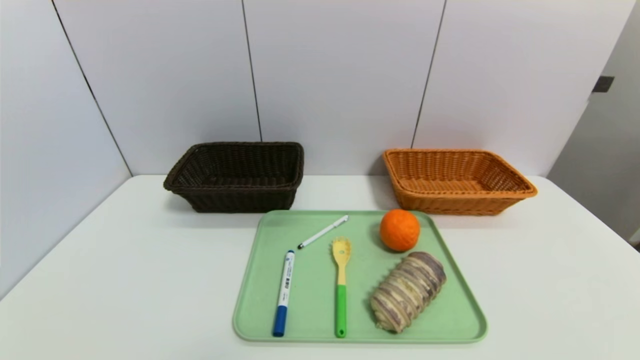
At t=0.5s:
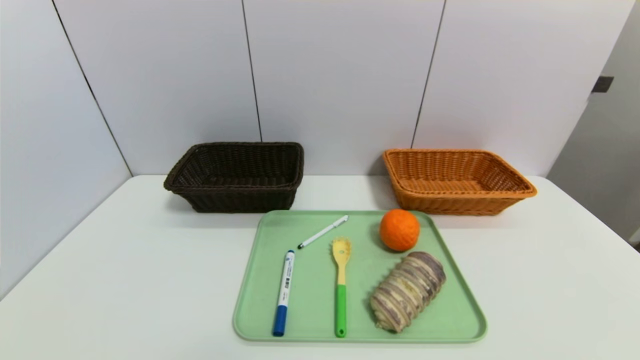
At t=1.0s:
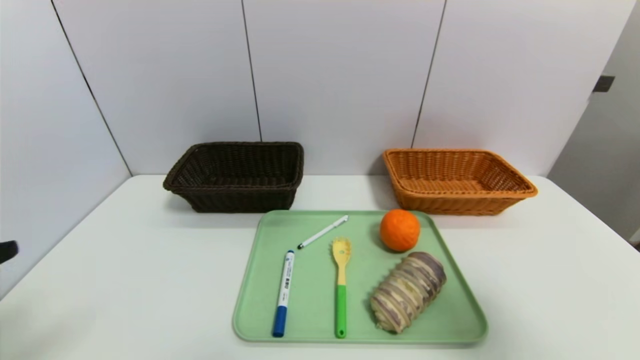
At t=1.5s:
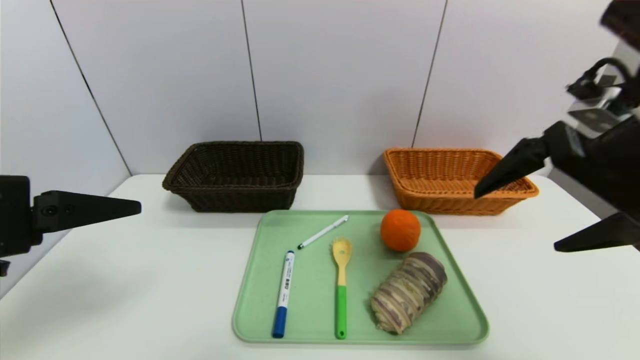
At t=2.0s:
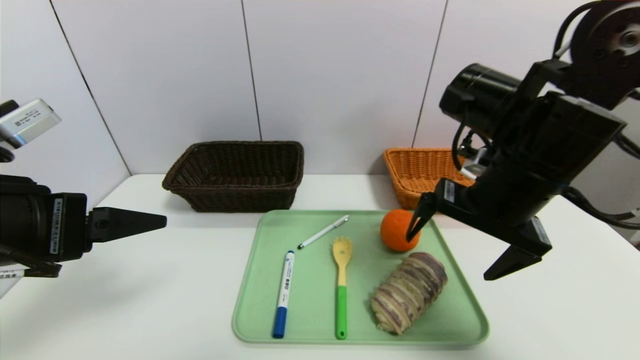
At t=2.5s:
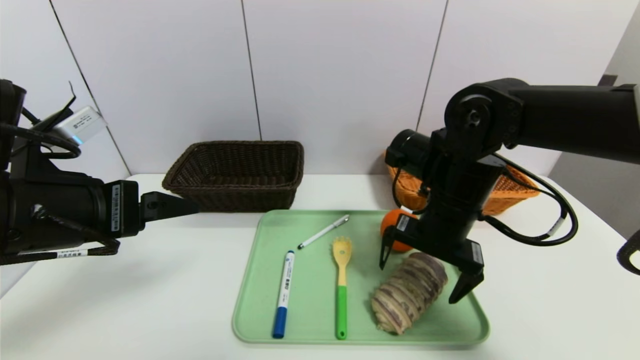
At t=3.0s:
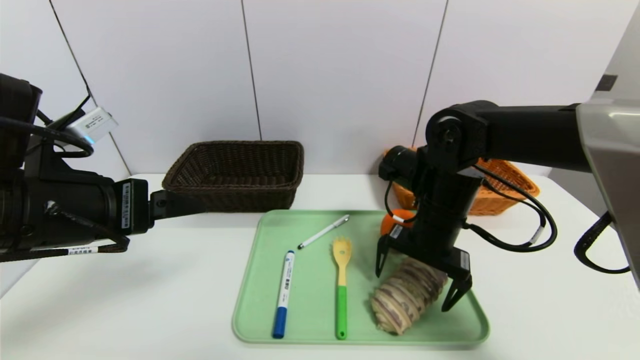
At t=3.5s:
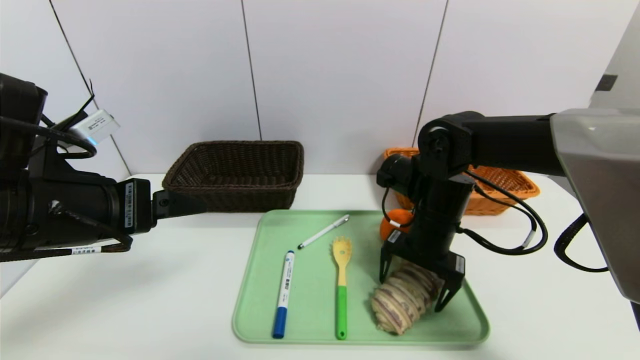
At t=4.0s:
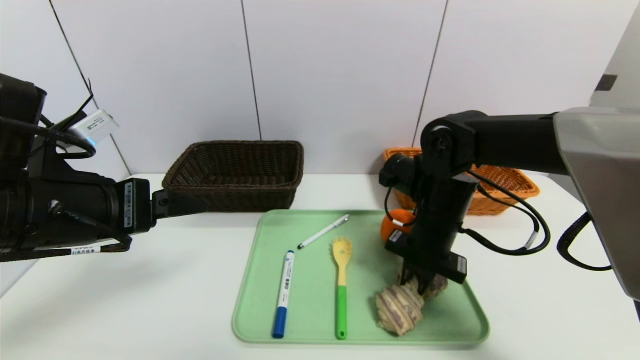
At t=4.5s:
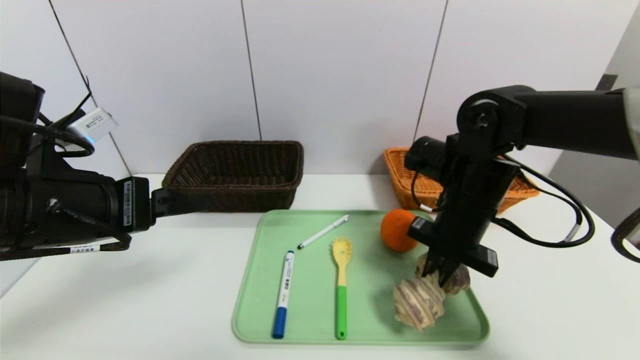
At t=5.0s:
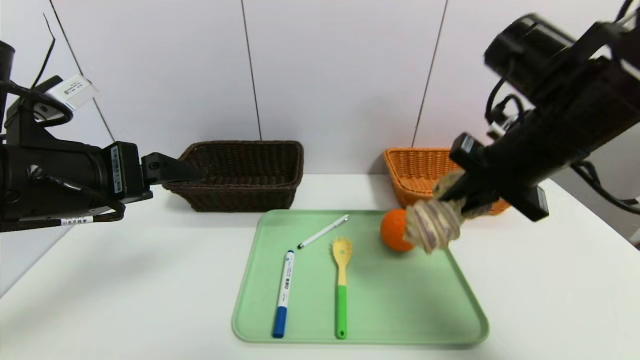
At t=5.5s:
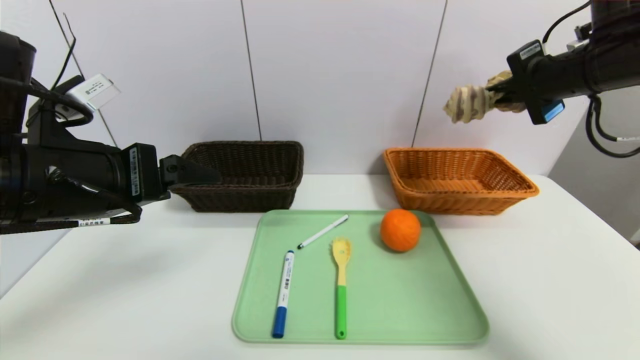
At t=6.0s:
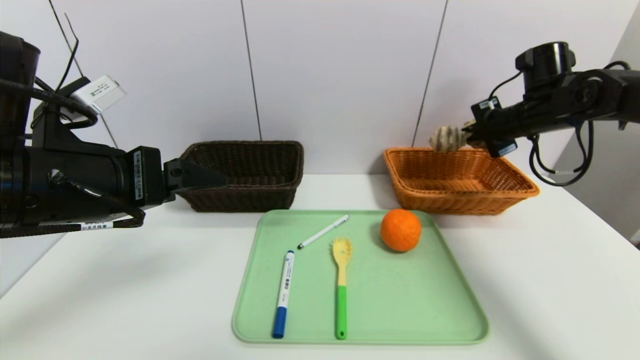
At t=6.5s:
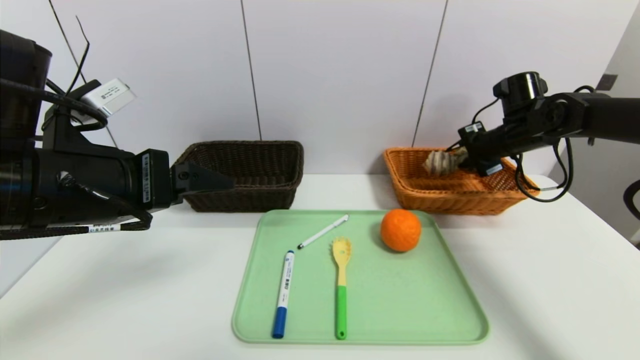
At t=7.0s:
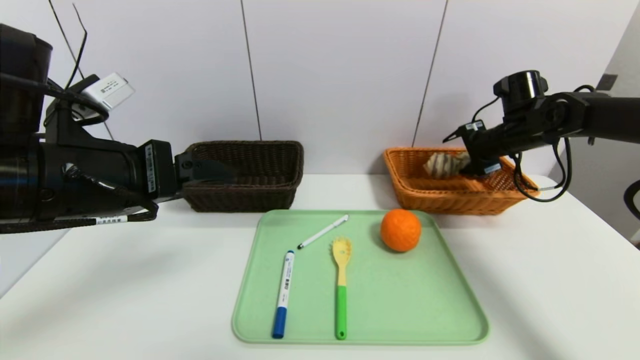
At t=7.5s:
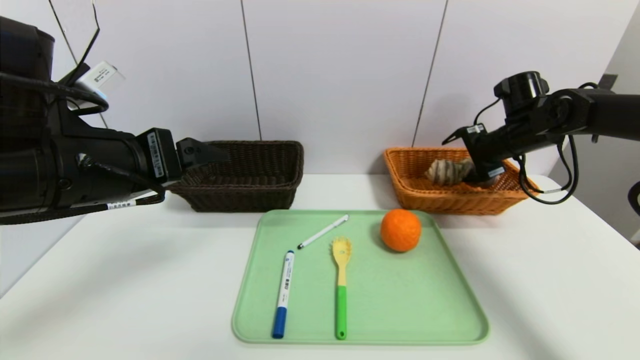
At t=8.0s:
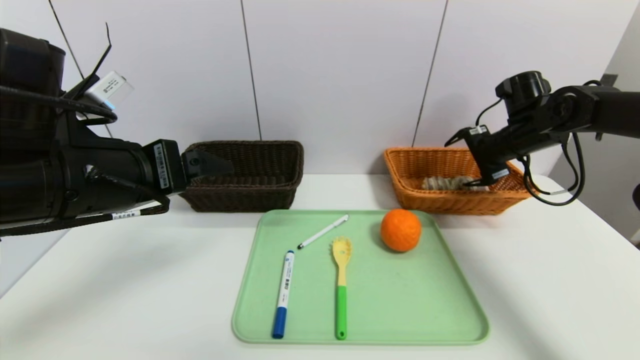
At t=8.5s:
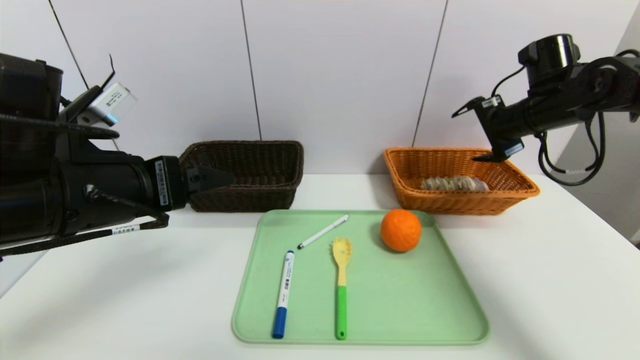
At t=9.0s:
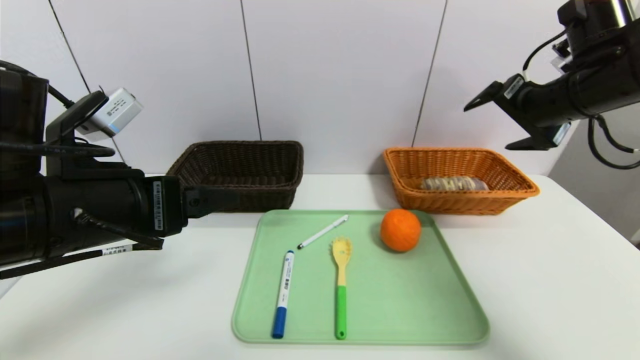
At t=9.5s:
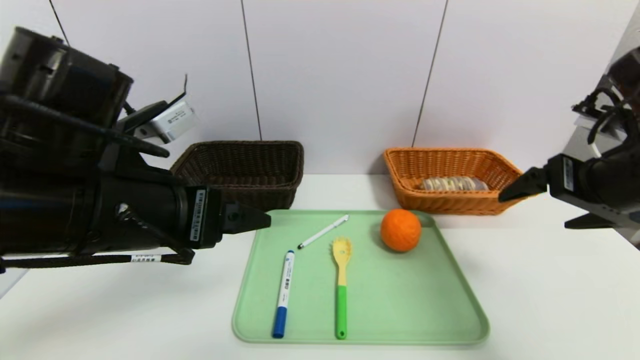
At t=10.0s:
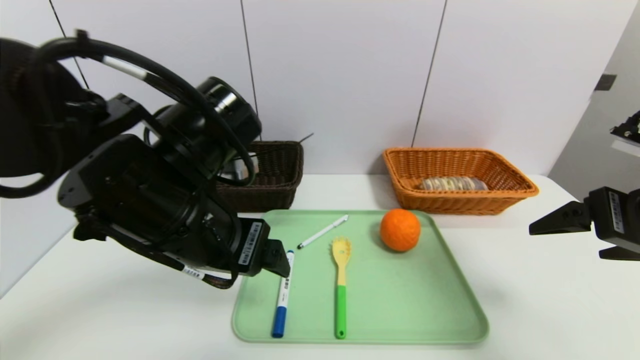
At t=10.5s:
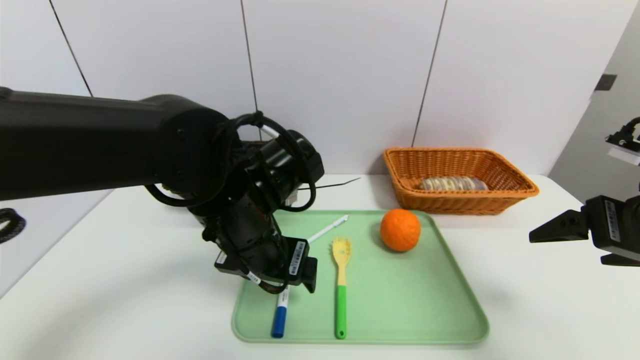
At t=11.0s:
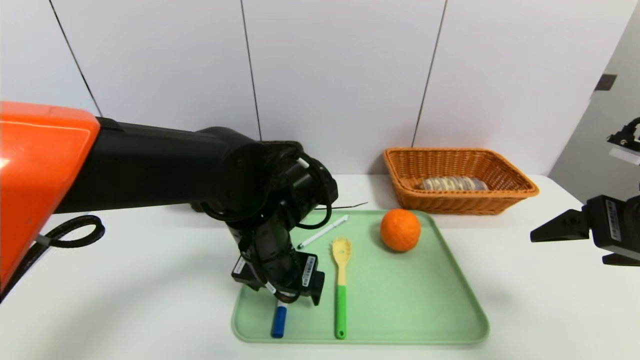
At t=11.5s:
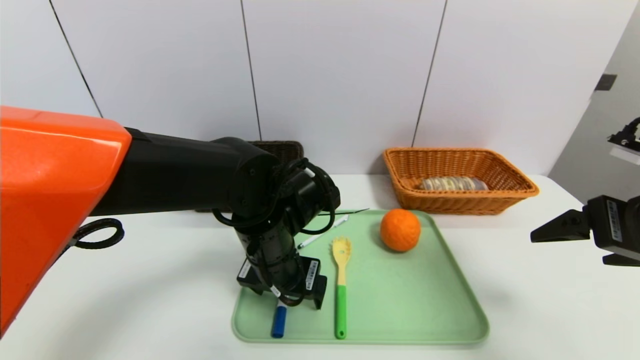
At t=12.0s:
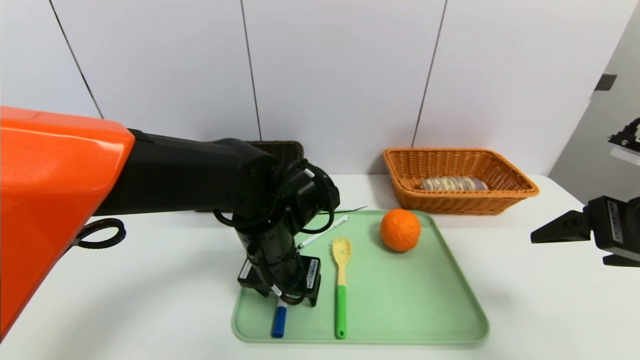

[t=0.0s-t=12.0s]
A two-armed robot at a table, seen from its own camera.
Task of the whole recording: place the food in the right basket with the right gripper, and place the non food items in the left basket with the left gripper.
Step, t=0.0s to t=8.0s: Grasp the long bread and put it in the right basket.
t=0.0s to t=2.0s: The right gripper heads forward, upward and to the left, covering approximately 35 cm. Meanwhile the left gripper travels upward and forward by about 25 cm.
t=2.0s to t=4.0s: The right gripper moves downward and forward, approximately 15 cm, and closes up.
t=4.0s to t=6.0s: The right gripper travels to the right, forward and upward by about 20 cm.
t=6.0s to t=8.0s: The right gripper opens up.
t=8.0s to t=10.0s: The right gripper travels backward by approximately 25 cm. Meanwhile the left gripper travels to the right by roughly 10 cm.
t=10.0s to t=12.0s: The left gripper heads downward, to the right and forward, covering roughly 15 cm.

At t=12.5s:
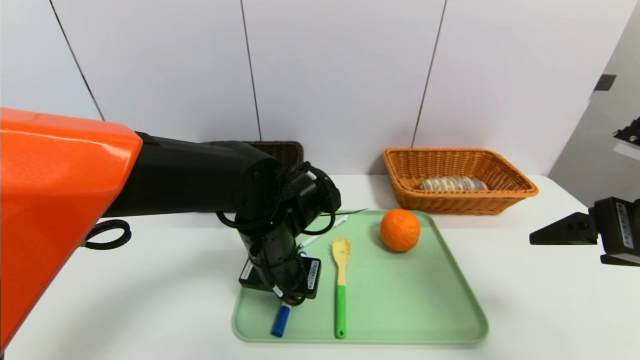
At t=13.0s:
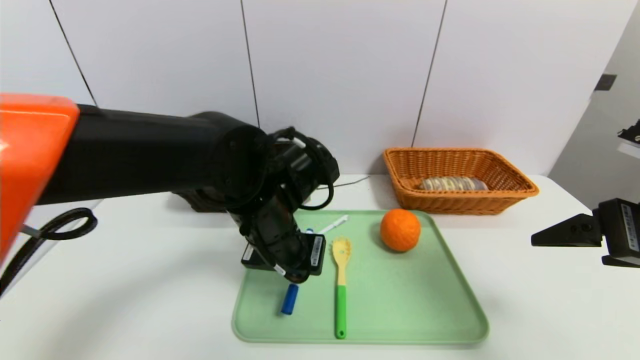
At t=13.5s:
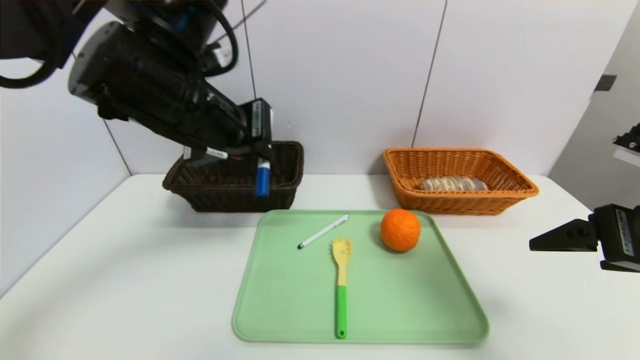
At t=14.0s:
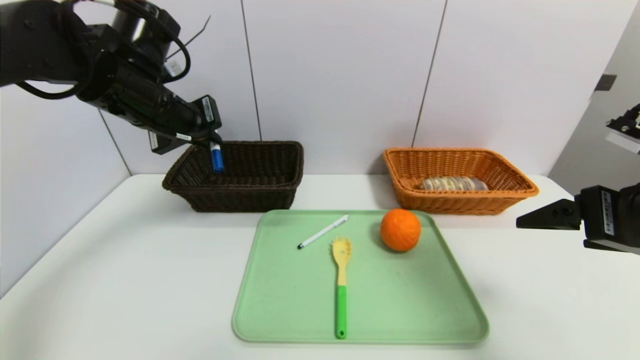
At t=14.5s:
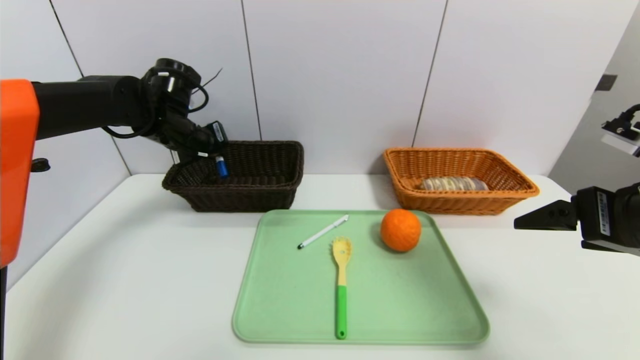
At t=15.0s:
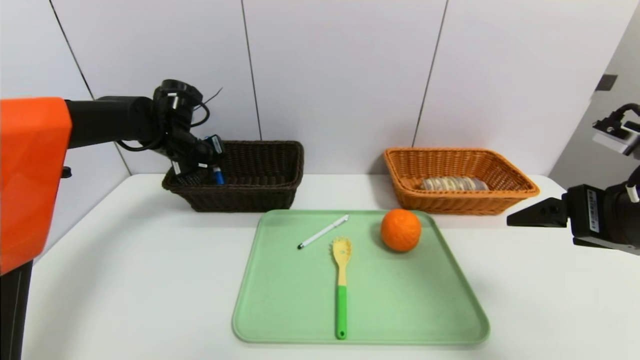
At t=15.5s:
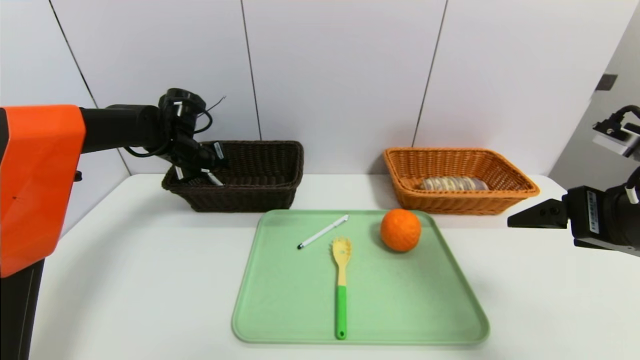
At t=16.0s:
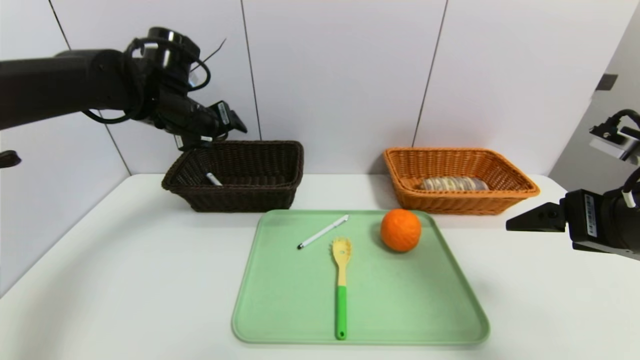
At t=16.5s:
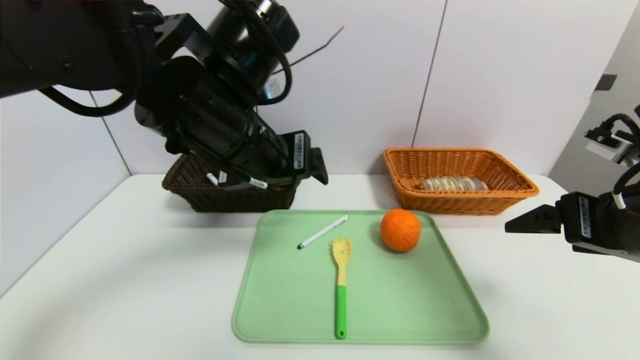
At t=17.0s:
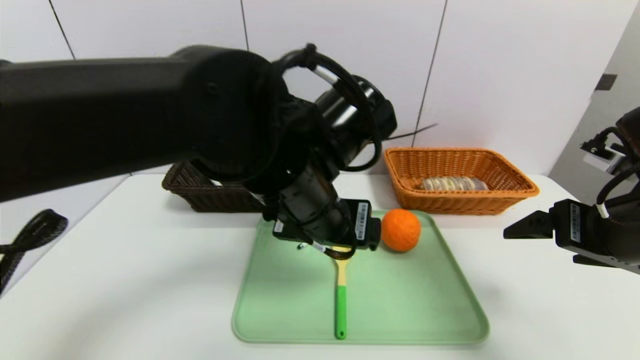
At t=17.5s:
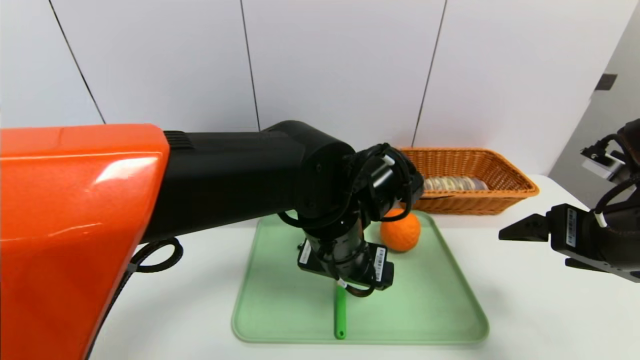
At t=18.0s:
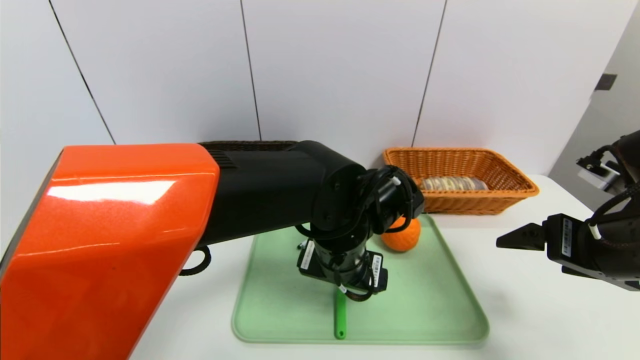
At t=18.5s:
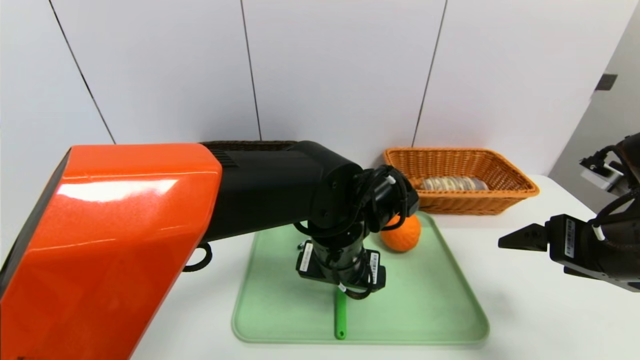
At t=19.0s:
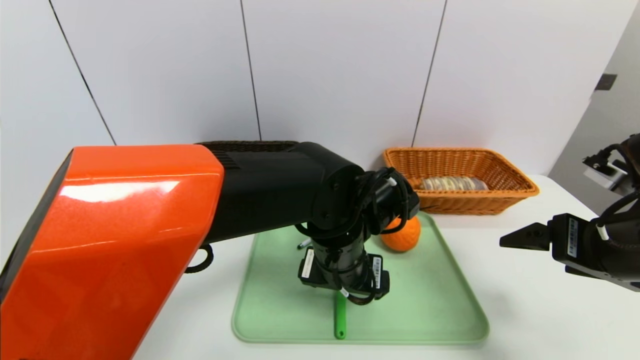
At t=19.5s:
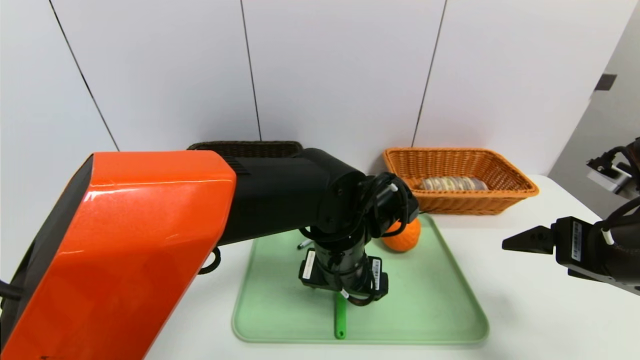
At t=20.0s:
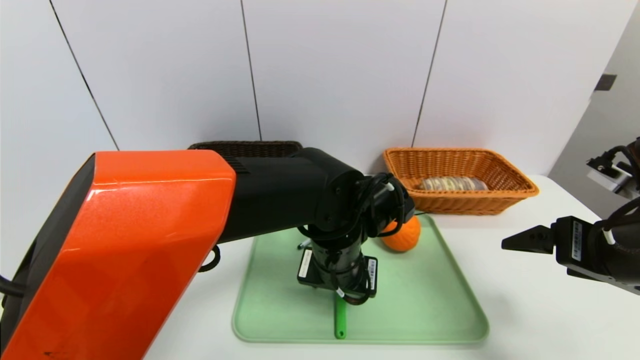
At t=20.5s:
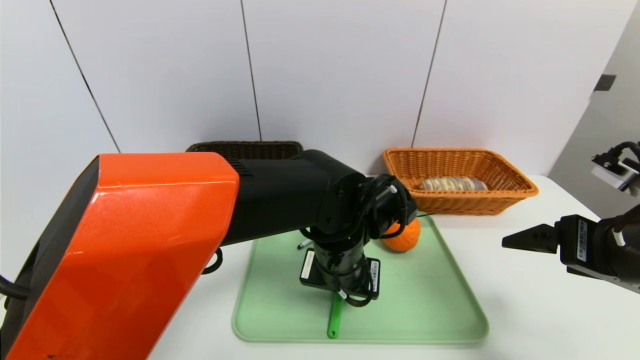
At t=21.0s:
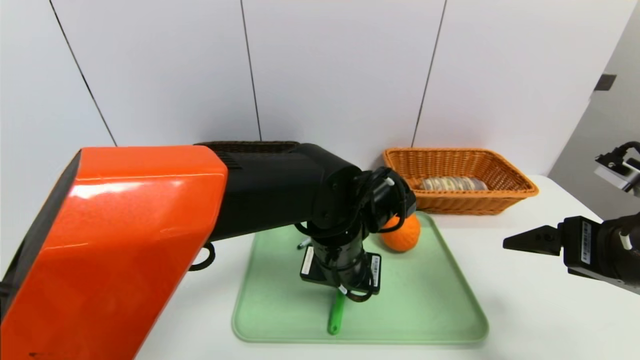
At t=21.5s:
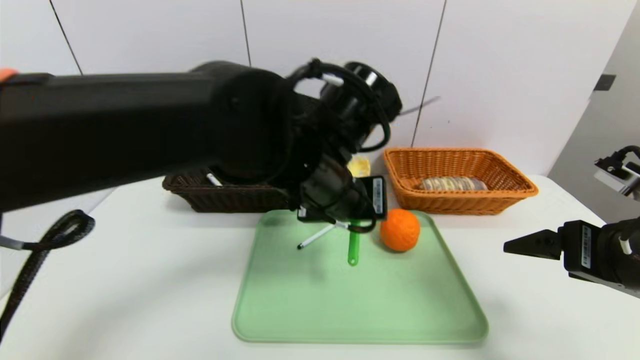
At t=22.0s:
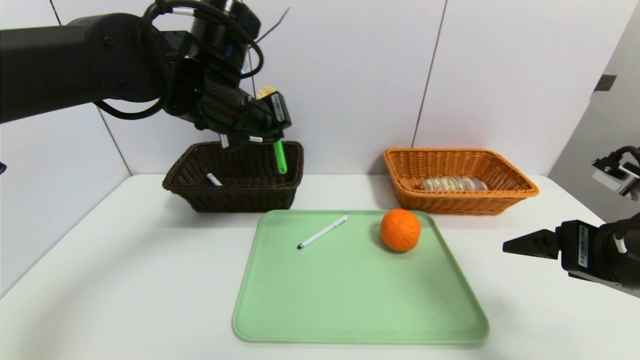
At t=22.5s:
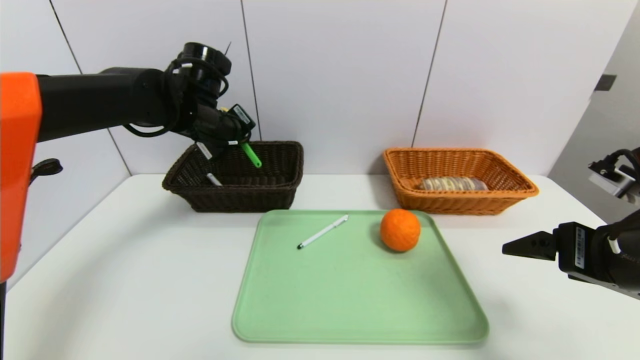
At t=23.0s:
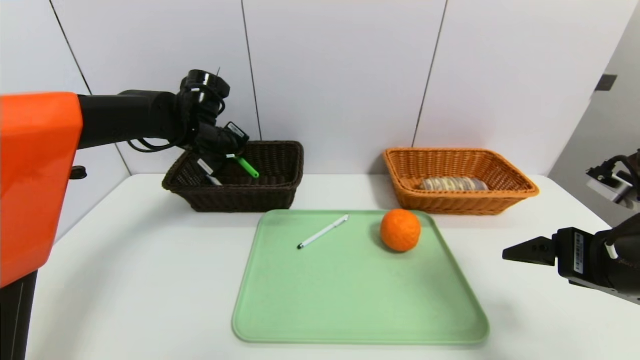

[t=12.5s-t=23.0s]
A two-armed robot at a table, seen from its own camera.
Task of the whole recording: place the food in the right basket with the right gripper, and place the non food items in the left basket with the left gripper.
Step, t=12.5s to t=15.5s: Grasp the blue marker and put it in the left basket.
t=12.5s to t=14.5s: The left gripper shifts approximately 25 cm to the left, forward and upward.
t=14.5s to t=16.5s: The left gripper goes about 25 cm backward and to the right, and opens.
t=16.5s to t=19.0s: The left gripper shifts some 20 cm downward and to the right.
t=19.0s to t=21.0s: The left gripper closes its fingers.
t=21.0s to t=23.0s: The left gripper is displaced to the left and forward by approximately 30 cm.
